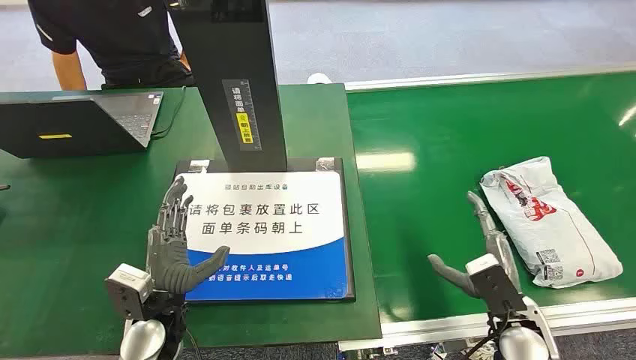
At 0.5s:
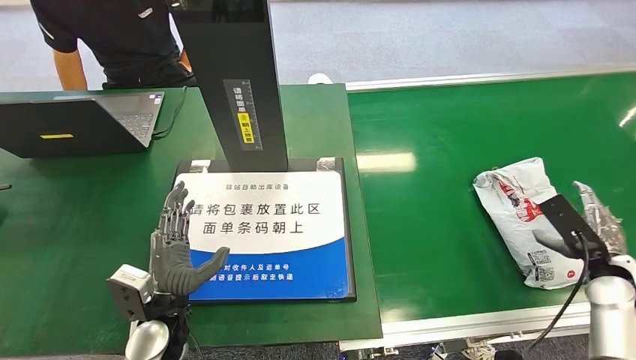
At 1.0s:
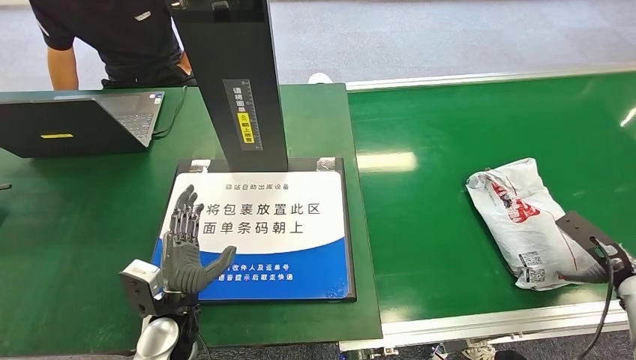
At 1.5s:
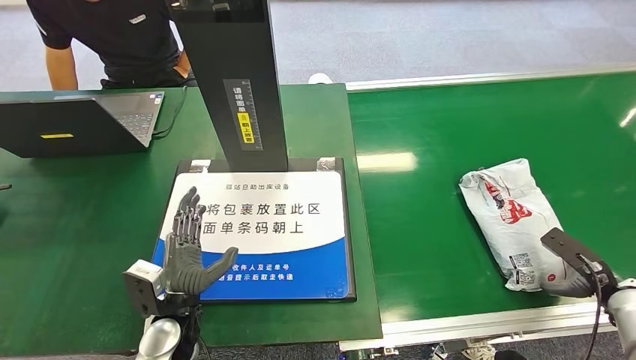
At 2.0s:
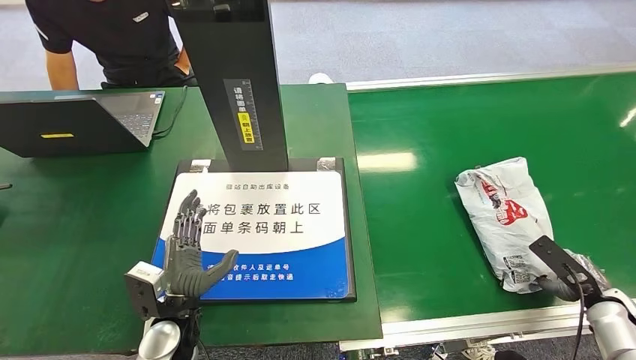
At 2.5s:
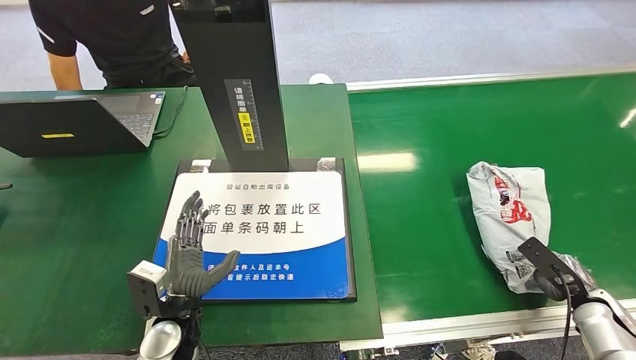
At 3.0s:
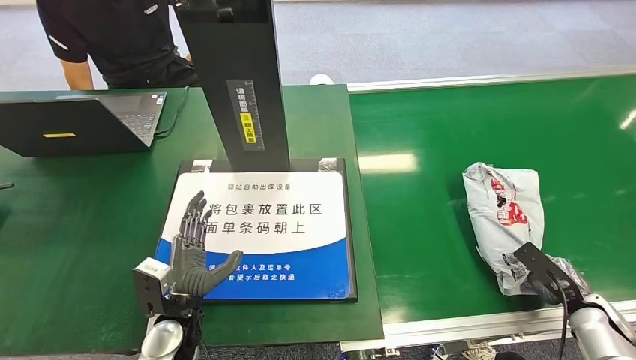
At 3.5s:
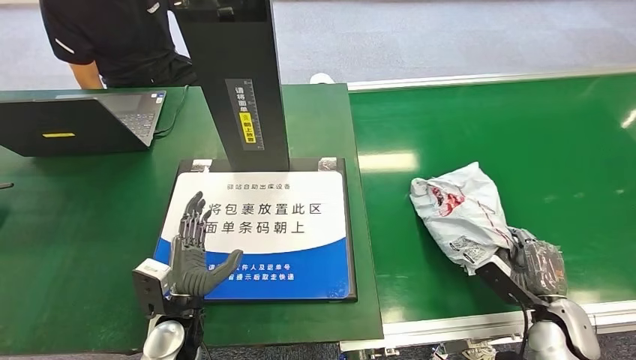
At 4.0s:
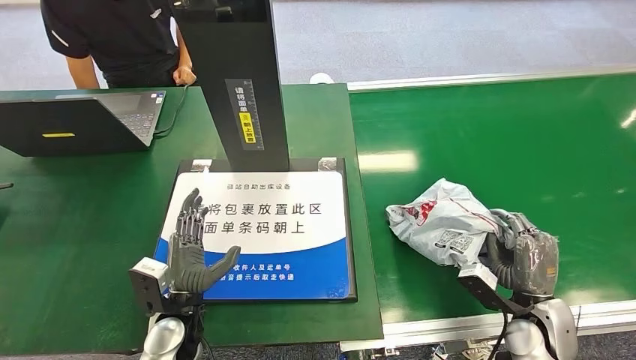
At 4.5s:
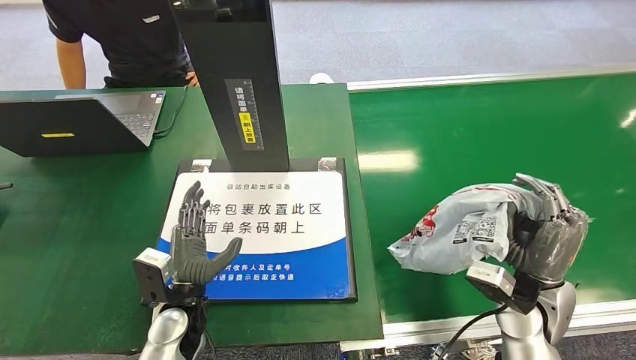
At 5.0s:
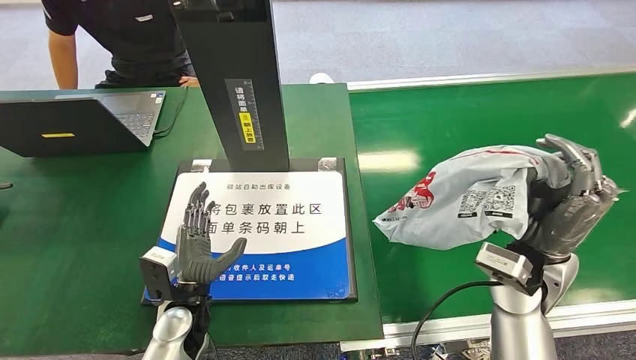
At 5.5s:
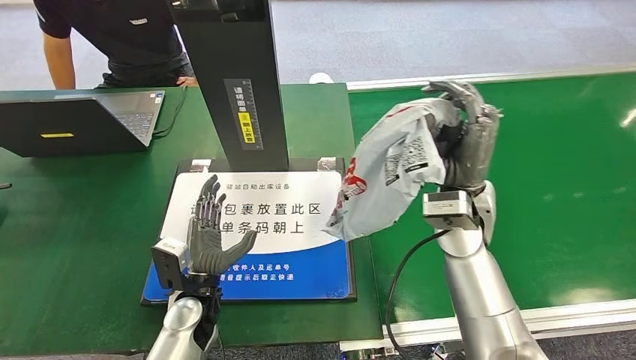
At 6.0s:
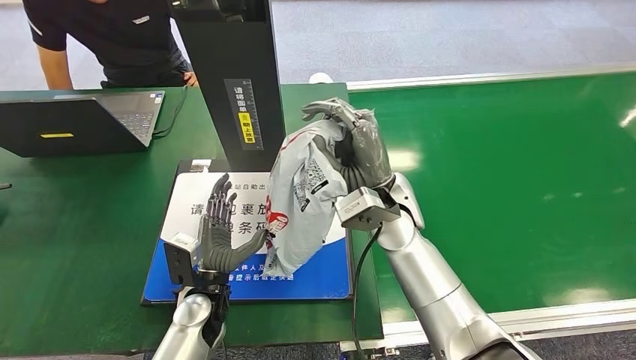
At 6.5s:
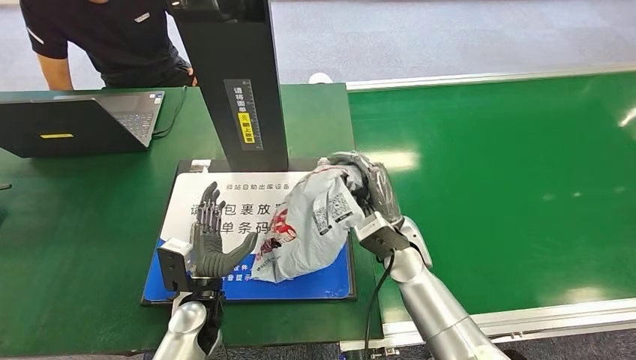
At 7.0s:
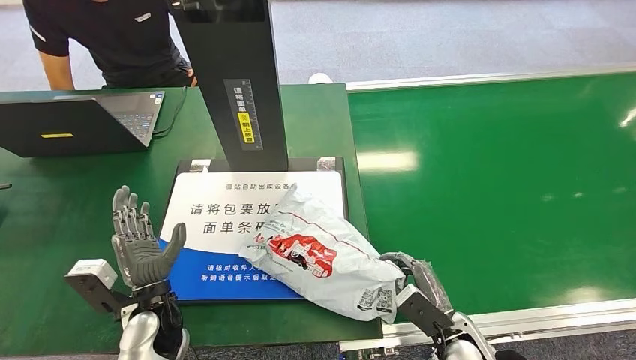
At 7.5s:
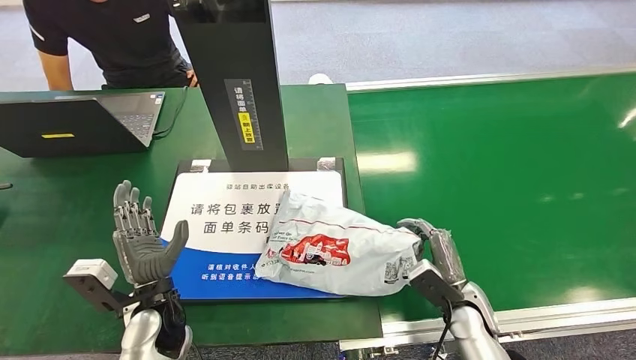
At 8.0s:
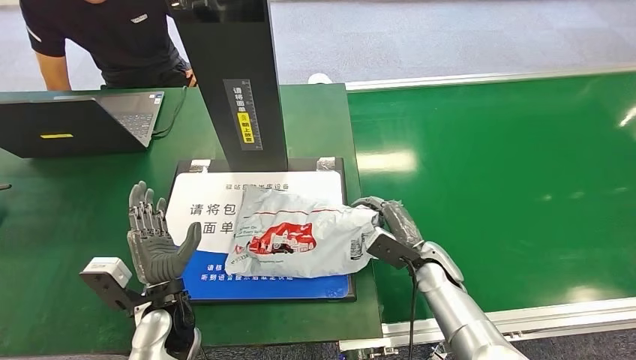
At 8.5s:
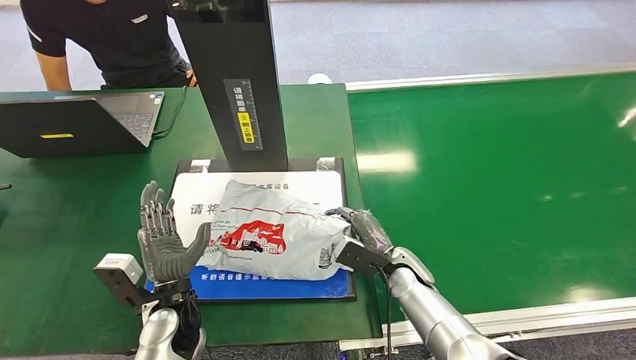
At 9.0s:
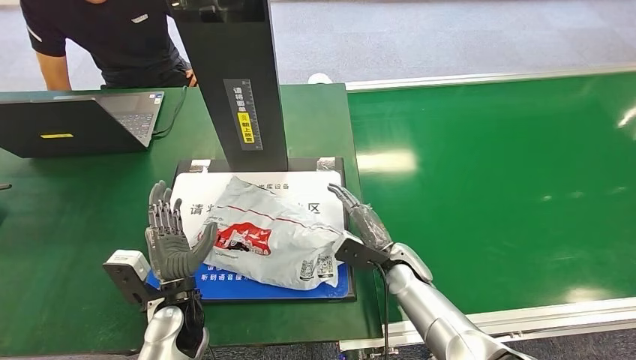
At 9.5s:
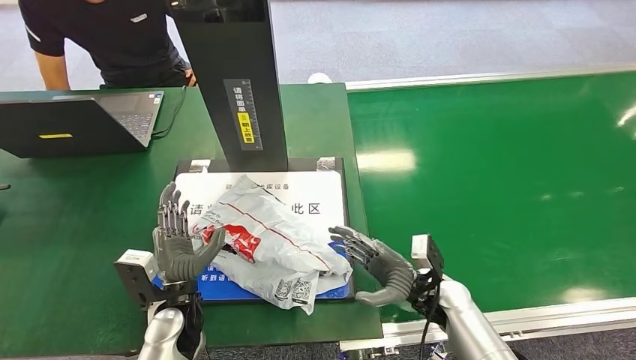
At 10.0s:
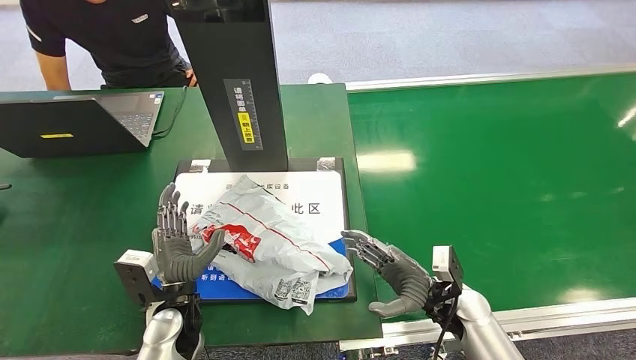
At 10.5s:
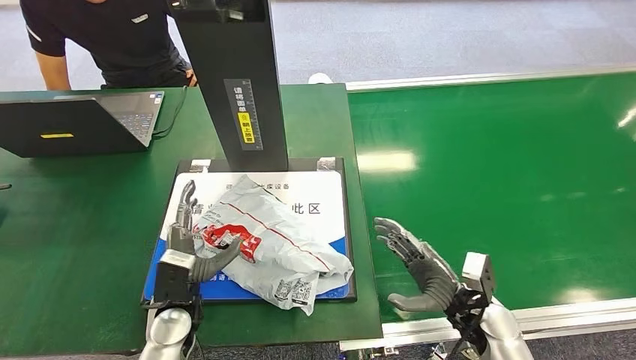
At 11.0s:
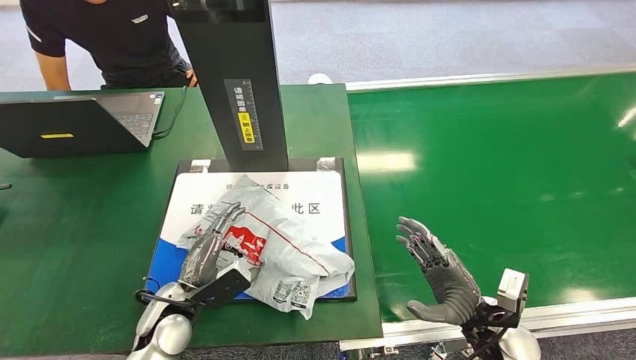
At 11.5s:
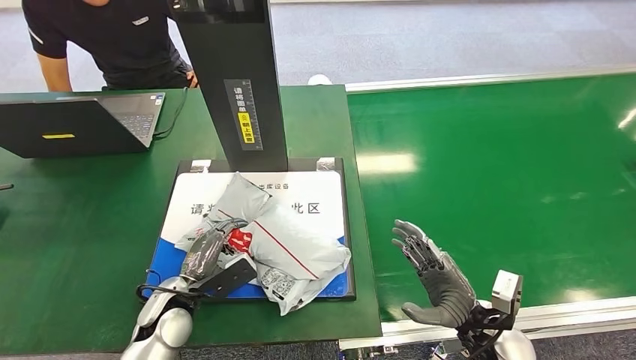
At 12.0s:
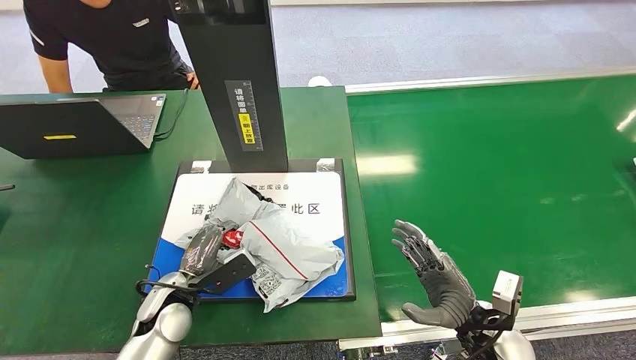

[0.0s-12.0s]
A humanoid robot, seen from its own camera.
Step, 0.0s to 4.5s: Pick up the package from the conveyor belt.
Step, 5.0s to 9.5s: Place the package onto the inbound machine.
2.0s to 4.0s: The right hand moves to the left, some 15 cm.
8.0s to 10.0s: The right hand travels backward by roughly 5 cm, and travels to the left and back again, approximately 5 cm each way.
10.0s to 12.0s: The right hand is displaced backward by about 5 cm.

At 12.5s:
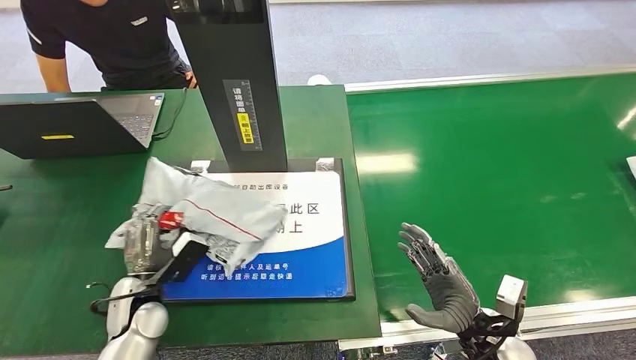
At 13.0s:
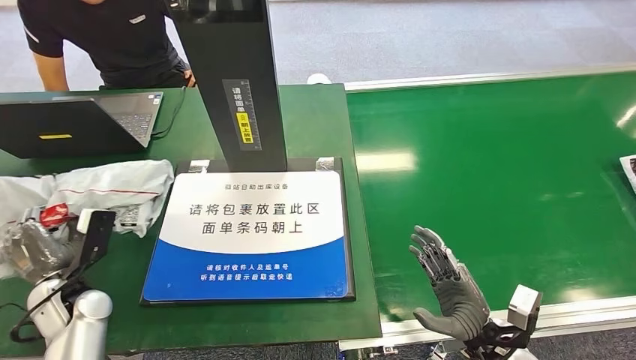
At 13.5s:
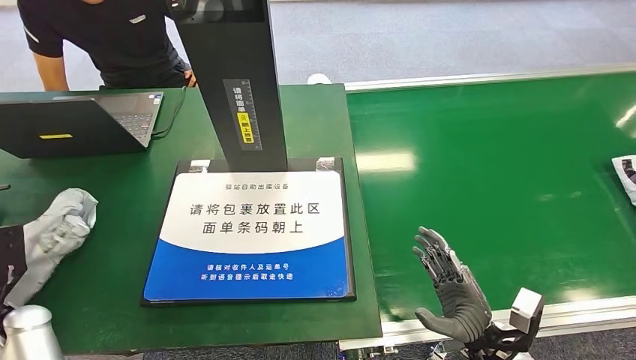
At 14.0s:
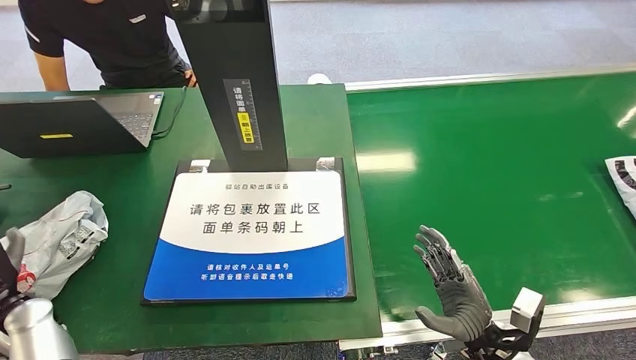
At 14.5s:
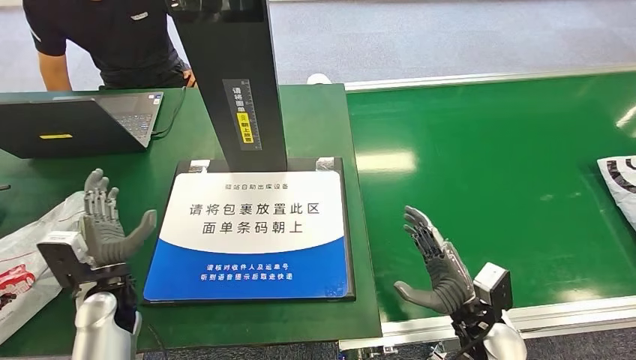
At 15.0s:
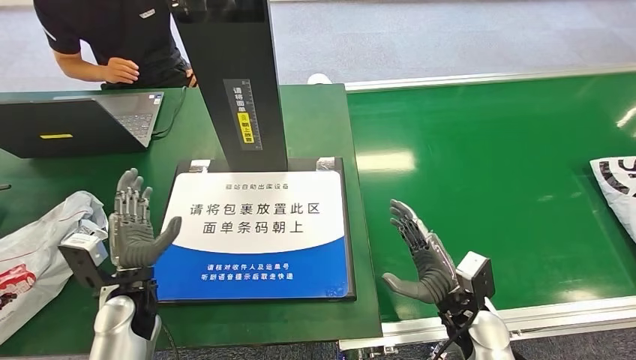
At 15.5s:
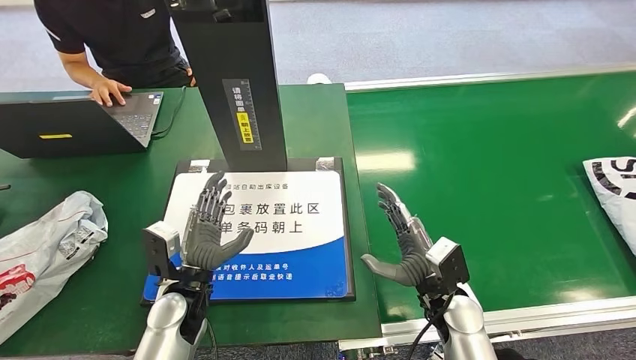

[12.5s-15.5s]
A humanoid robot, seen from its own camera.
Step, 13.0s to 15.5s: Place the package into the parcel locker.
12.5s to 14.0s: The left hand shifts approximately 15 cm to the left.
14.0s to 15.5s: The right hand shifts some 10 cm forward and to the left; the left hand travels to the right by roughly 25 cm.
